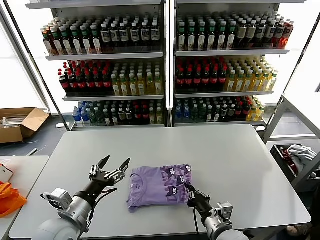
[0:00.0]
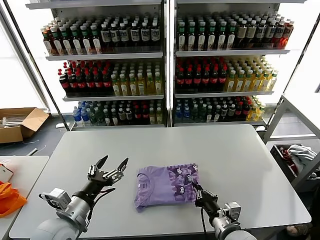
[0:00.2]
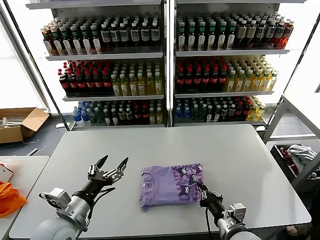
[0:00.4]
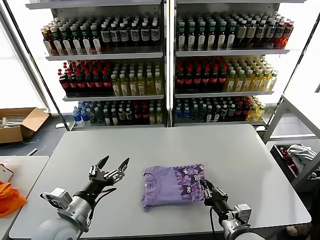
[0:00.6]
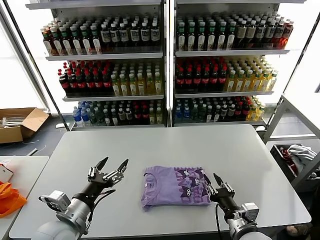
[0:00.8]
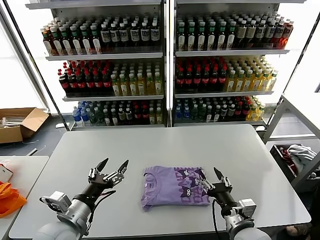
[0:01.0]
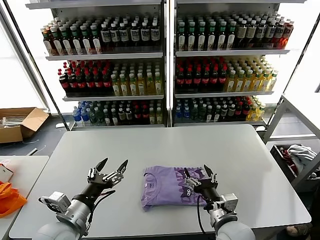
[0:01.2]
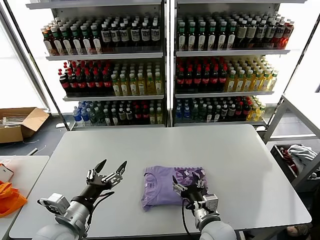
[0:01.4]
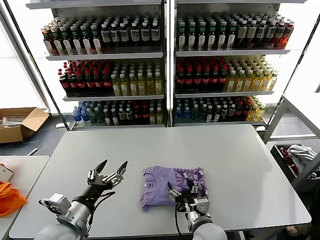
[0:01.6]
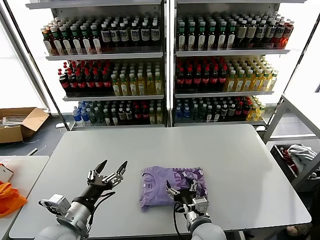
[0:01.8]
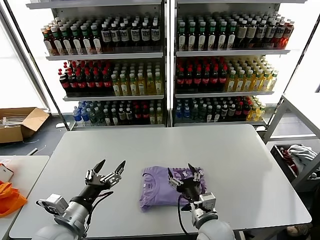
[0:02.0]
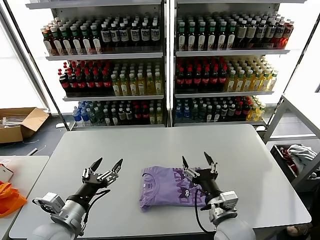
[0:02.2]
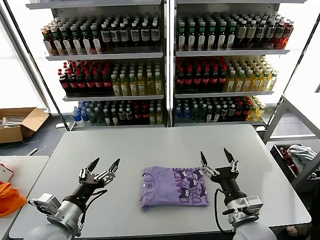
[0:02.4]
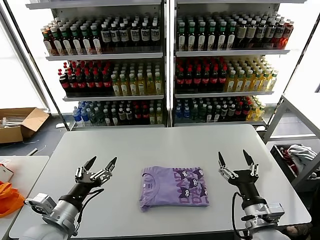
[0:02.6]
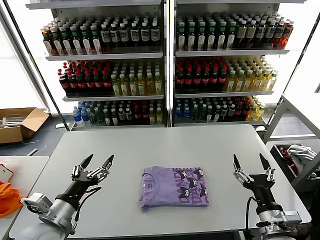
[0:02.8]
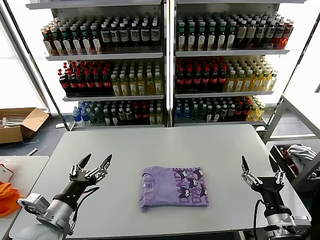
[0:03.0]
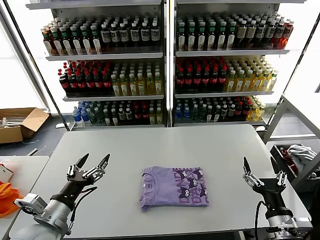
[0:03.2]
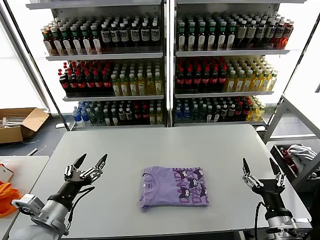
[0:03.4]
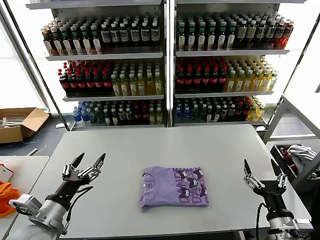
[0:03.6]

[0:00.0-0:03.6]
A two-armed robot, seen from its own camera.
Task of the whole recording: fold and organize the clothes.
Step, 0:00.0 to 0:02.0: Drag the clothes to the center of the table.
0:00.0 to 0:01.8: The right gripper travels to the left by some 5 cm, and opens.
0:01.8 to 0:03.6: The right gripper shifts approximately 20 cm to the right, while the left gripper changes place by approximately 5 cm.
